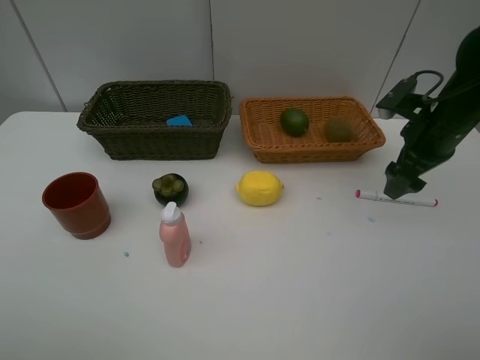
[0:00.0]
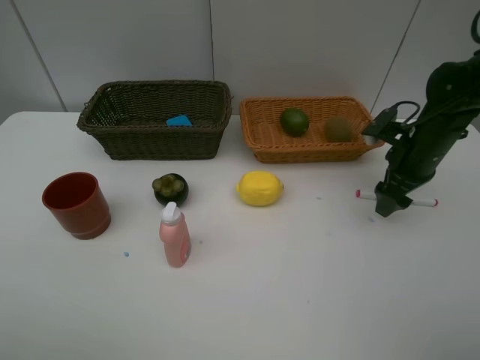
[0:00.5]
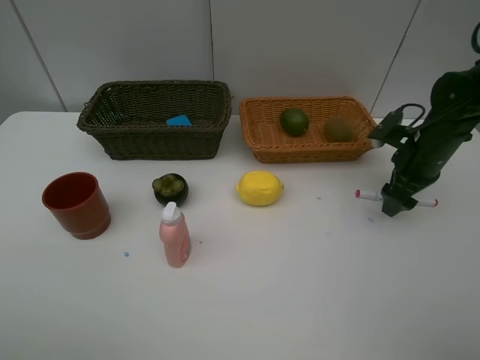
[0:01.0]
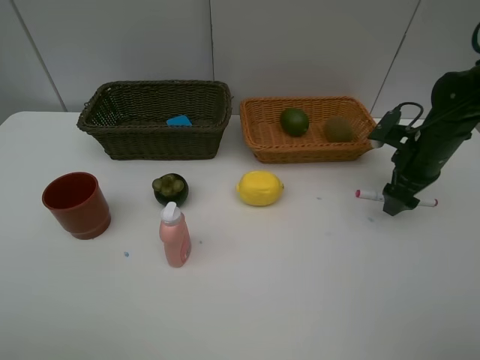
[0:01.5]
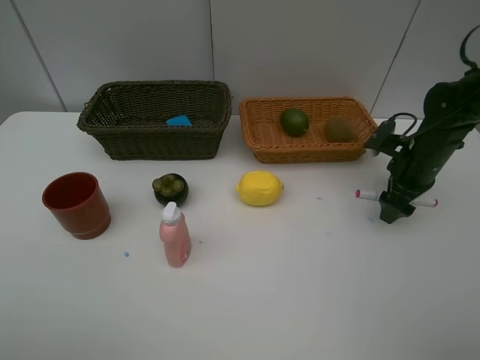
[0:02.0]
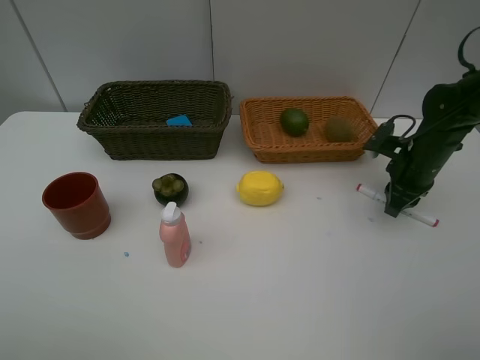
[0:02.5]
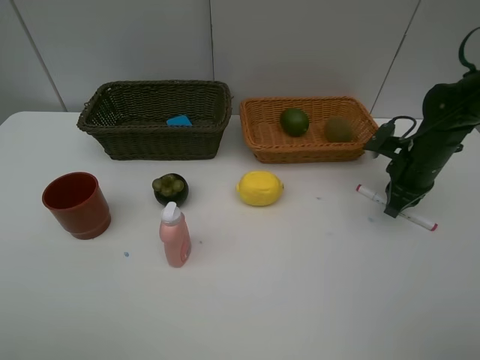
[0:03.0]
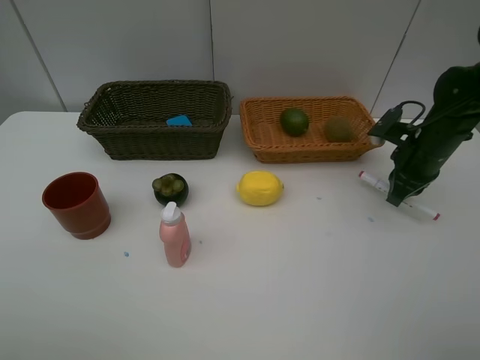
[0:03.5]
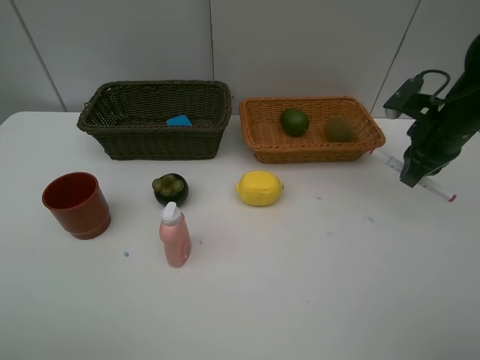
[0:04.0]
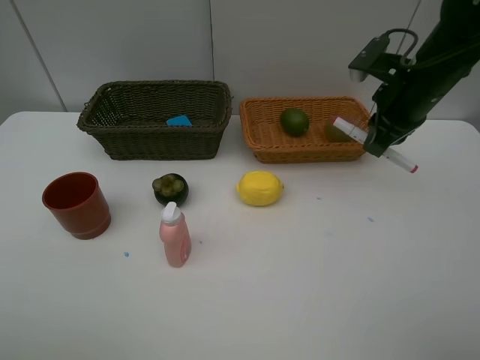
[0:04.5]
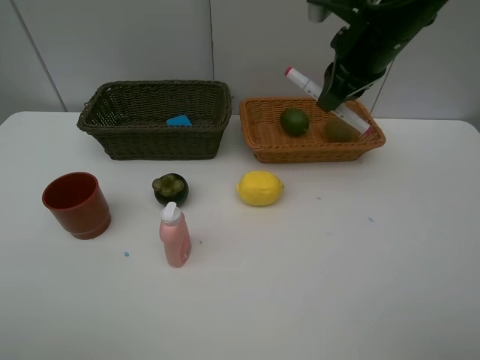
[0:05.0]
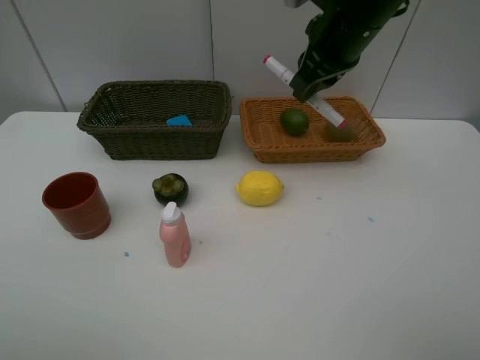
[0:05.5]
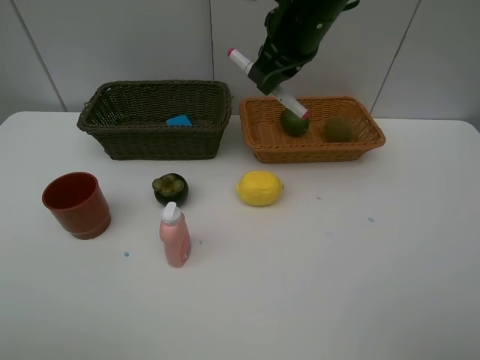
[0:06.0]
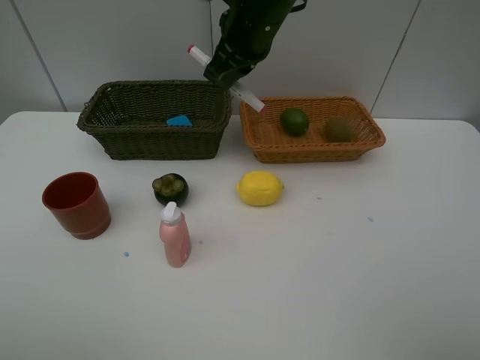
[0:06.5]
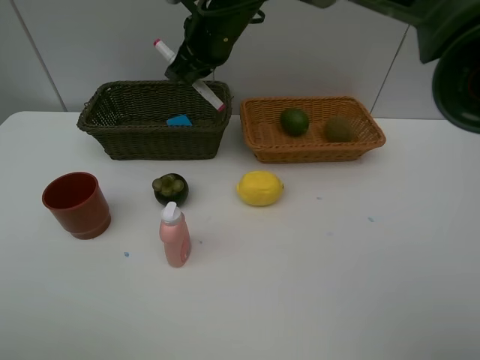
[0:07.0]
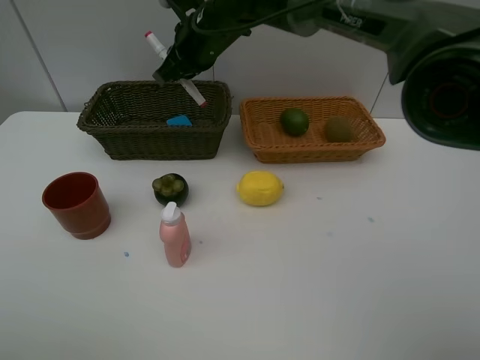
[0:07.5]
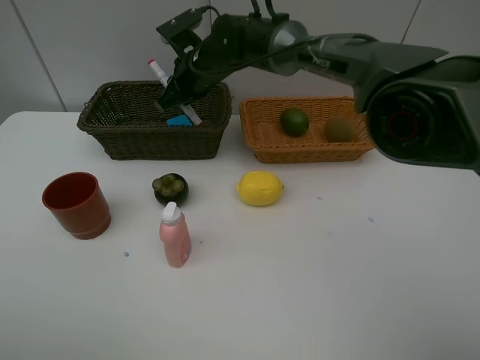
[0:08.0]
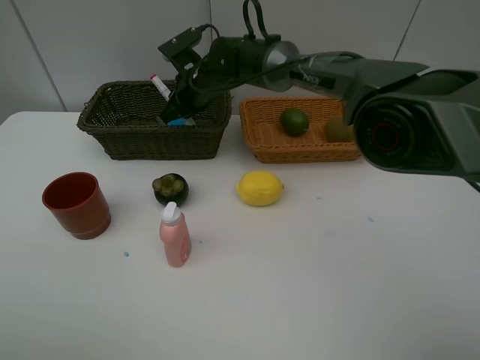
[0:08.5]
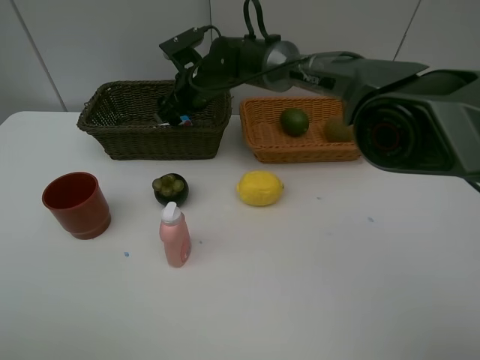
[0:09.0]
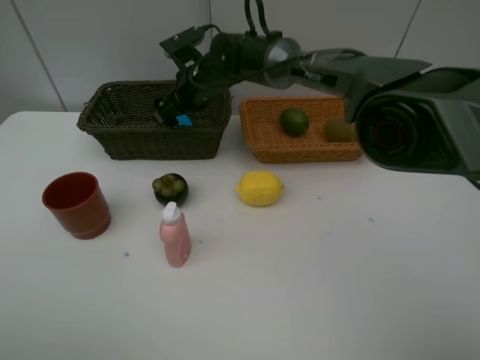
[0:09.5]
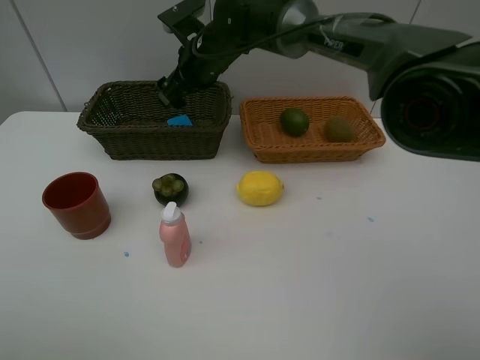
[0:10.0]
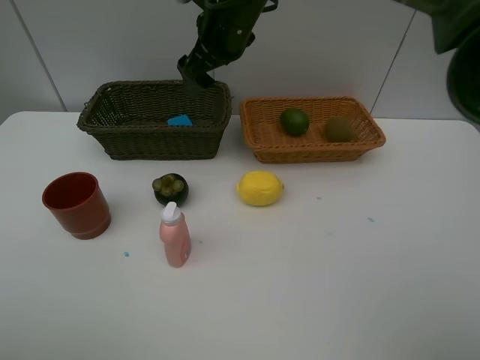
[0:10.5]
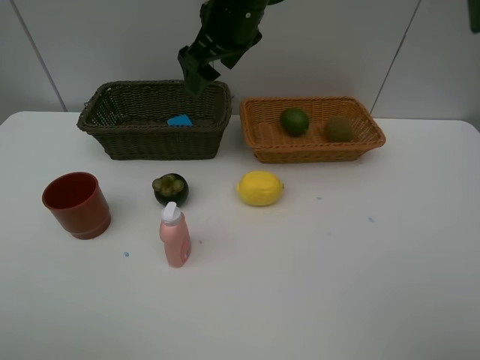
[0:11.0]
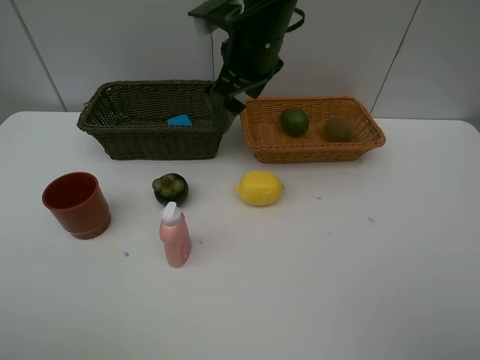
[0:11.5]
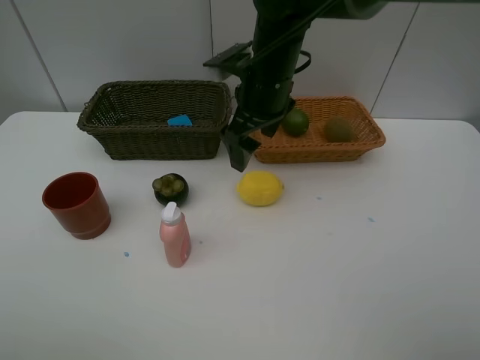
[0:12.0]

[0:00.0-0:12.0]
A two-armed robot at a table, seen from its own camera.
Task of the whole recording: Place multiple objects separately in different baskets.
Step, 0:00.0 to 0:03.5: Pick up the red marker with right gripper.
Step, 0:04.0 to 0:10.0: Place the red marker in the dark basket with right gripper.
0:00.0 to 0:02.0: The right gripper is displaced downward by some 5 cm.
0:02.0 to 0:04.0: The right gripper is displaced upward by approximately 10 cm, and closes up.
0:04.0 to 0:06.0: The right gripper moves to the left and upward, roughly 25 cm.
0:06.0 to 0:08.0: The right gripper moves to the left, downward and forward, some 20 cm.
0:08.0 to 0:10.0: The right gripper opens up.
0:10.0 to 0:12.0: The right gripper heads backward and to the right, covering roughly 10 cm.

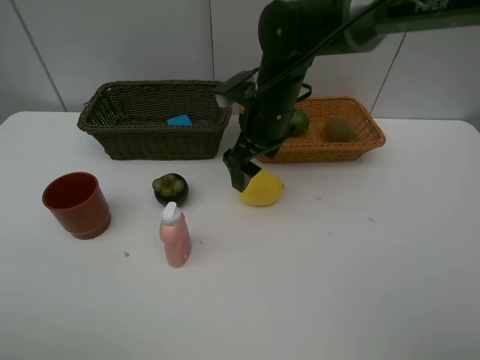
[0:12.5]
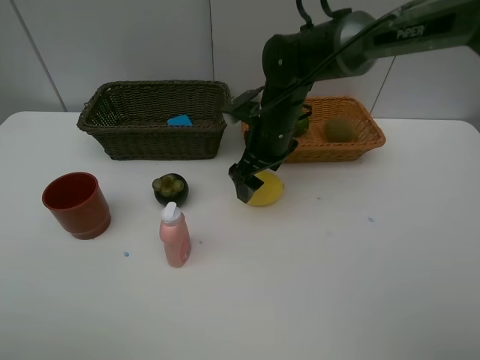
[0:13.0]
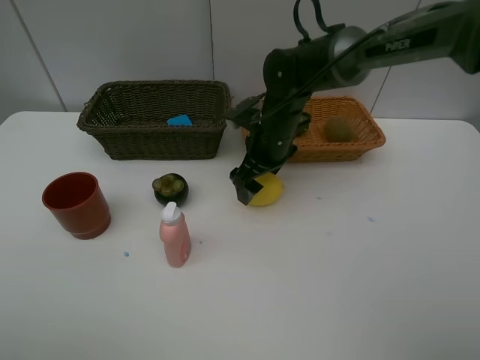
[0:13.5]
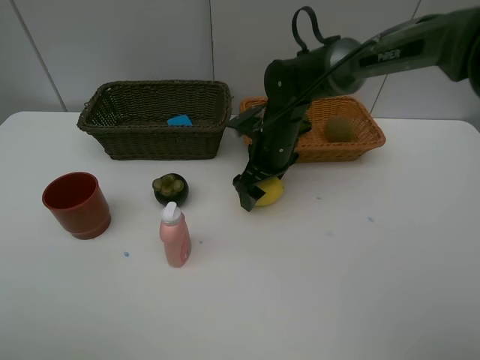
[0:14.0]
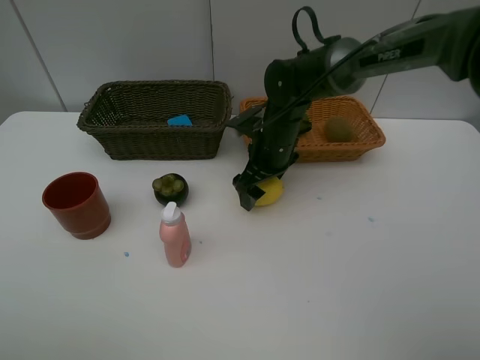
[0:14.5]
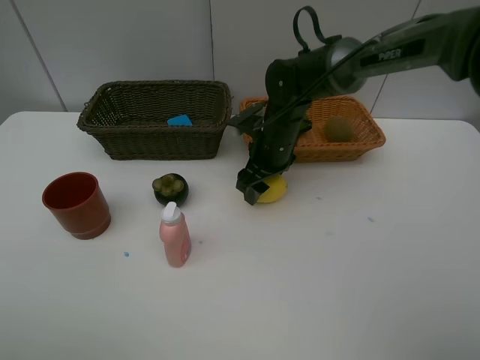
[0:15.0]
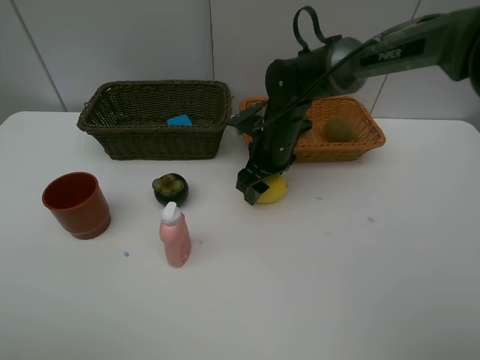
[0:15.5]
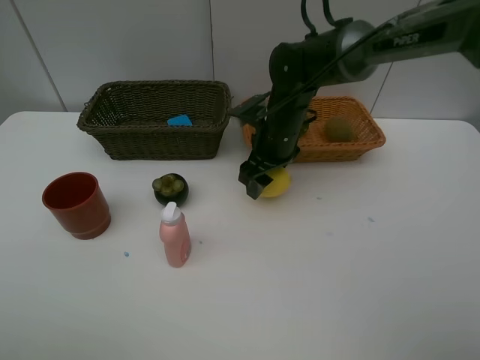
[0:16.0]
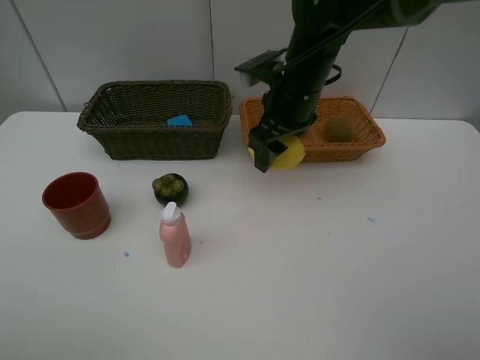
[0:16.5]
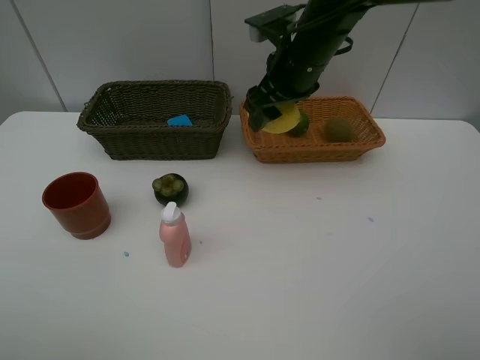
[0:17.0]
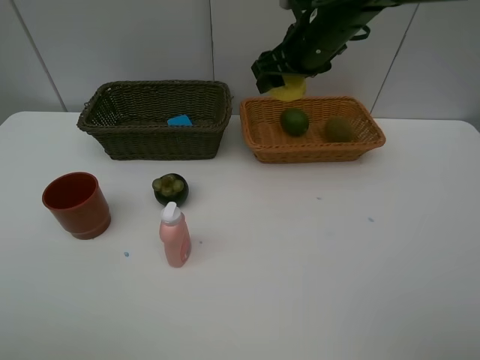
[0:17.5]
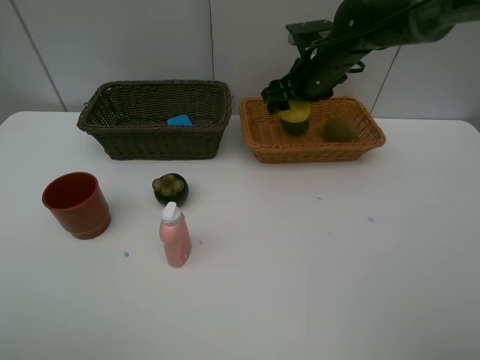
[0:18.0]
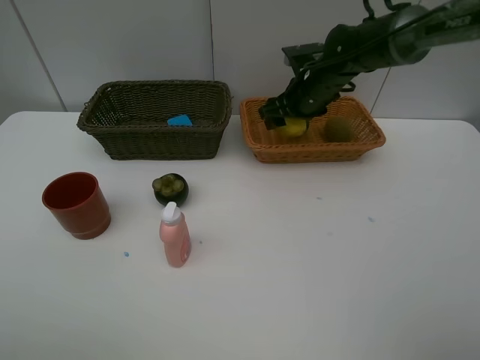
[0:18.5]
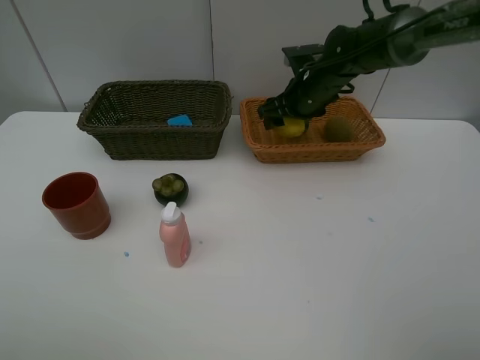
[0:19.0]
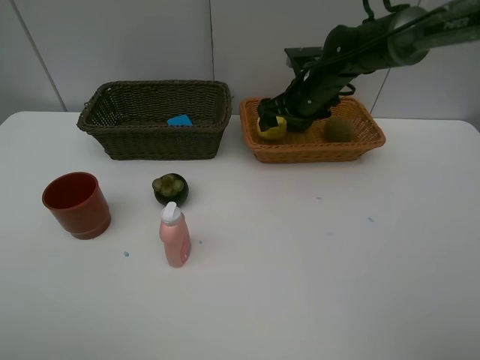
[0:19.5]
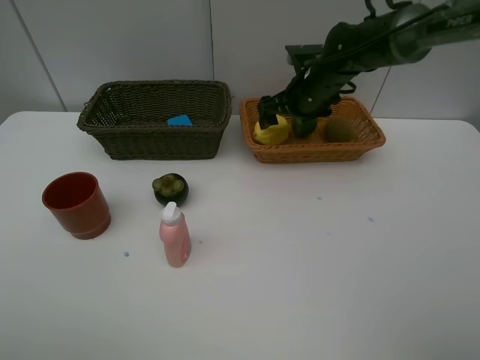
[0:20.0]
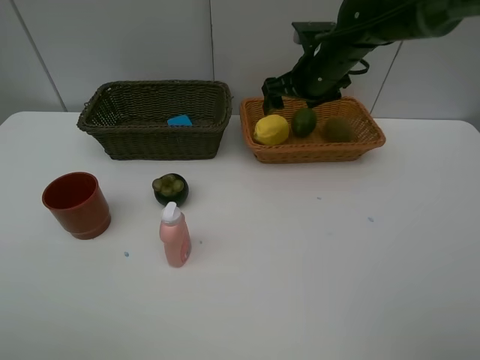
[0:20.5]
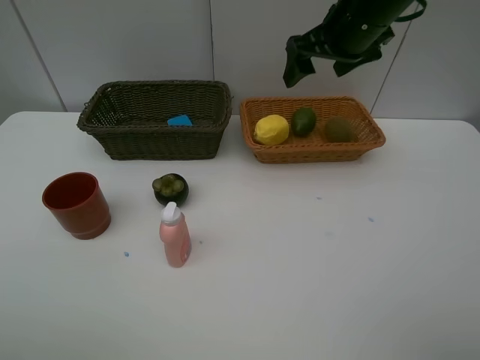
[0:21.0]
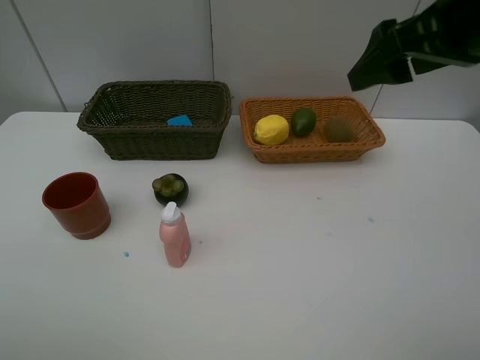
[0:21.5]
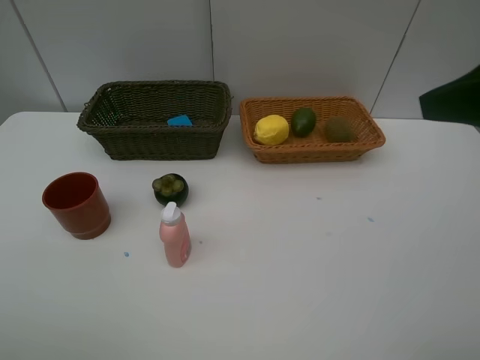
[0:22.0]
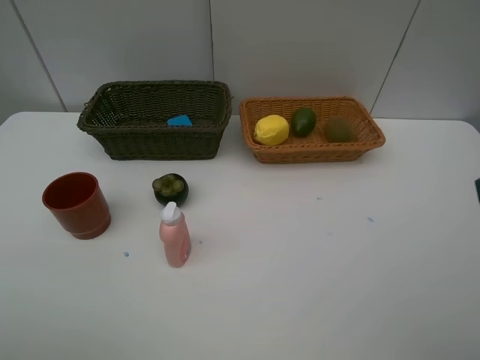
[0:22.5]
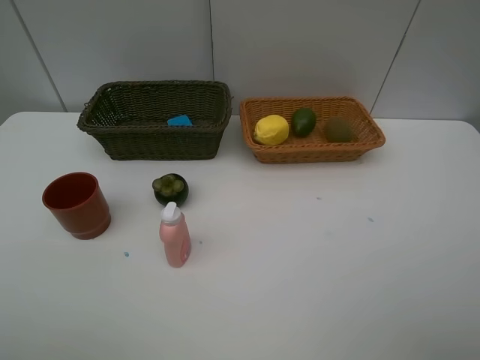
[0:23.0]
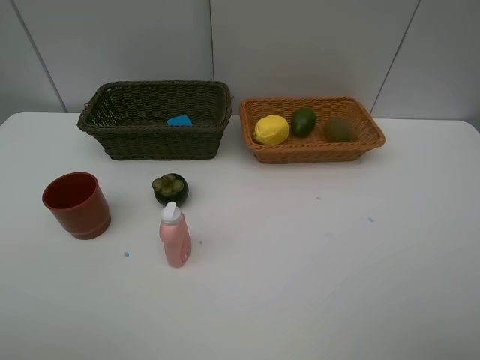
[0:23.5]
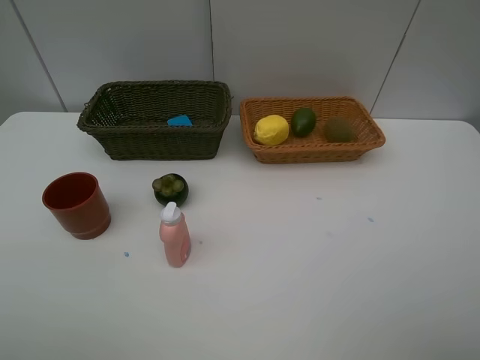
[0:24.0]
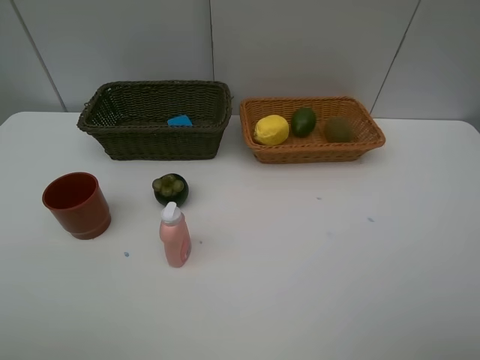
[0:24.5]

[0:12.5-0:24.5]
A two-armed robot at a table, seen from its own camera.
Task of the whole recording: Place multiple objects separately in different baskets.
Step, 0:12.5 to 0:16.0: Pick up the lemon with right gripper.
Step, 0:16.5 to 0:20.0: Place the lemon in the light basket with right gripper.
0:12.5 to 0:14.5: The right gripper travels downward by some 5 cm.
0:14.5 to 0:16.5: The right gripper heads upward, covering roughly 10 cm.
0:16.5 to 0:18.5: The right gripper goes approximately 10 cm forward, downward and to the right.
0:18.5 to 0:20.5: The grippers stay close to where they were, moving slightly.
0:20.5 to 0:22.5: The right gripper travels backward by some 35 cm.

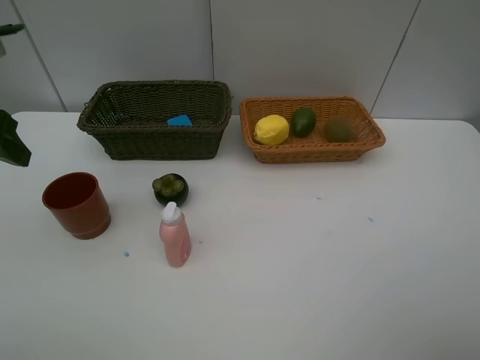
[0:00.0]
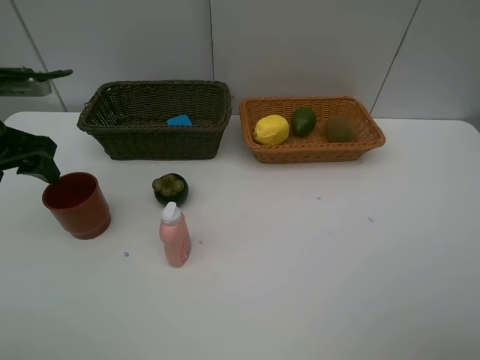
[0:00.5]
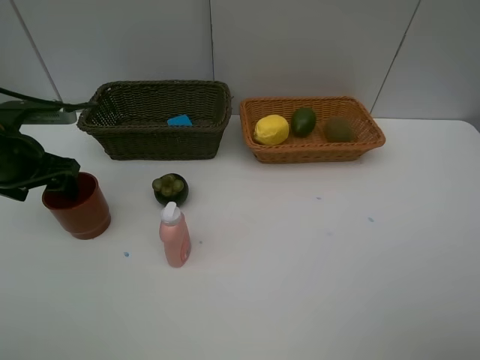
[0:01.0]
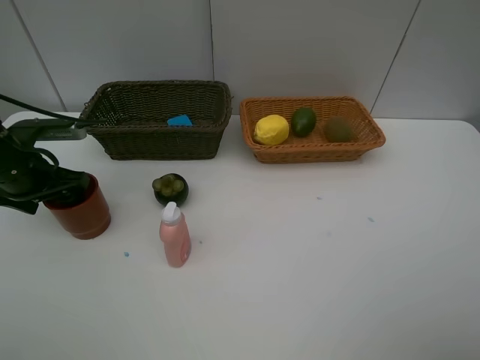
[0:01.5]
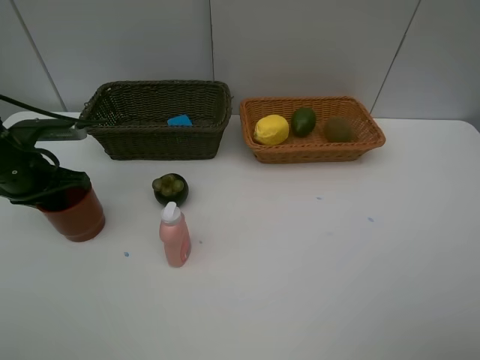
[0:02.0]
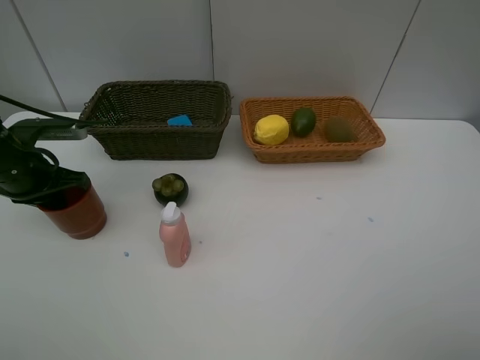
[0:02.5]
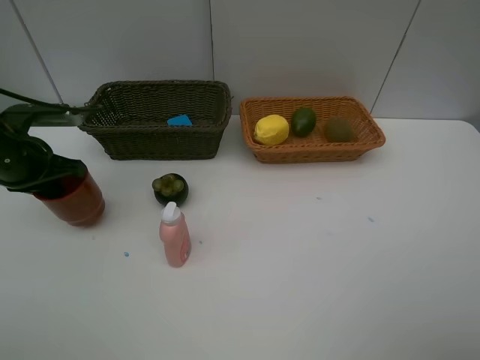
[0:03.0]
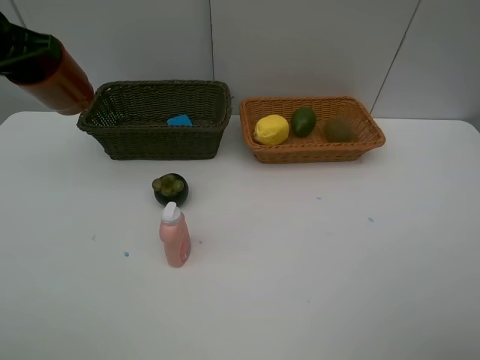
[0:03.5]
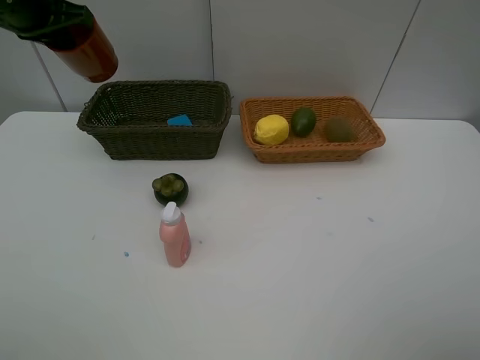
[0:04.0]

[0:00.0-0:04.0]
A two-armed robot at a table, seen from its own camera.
Task of the whole recording: Place multiple objects separately in different baskets.
Step, 0:00.0 to 0:03.0: Pick up the dark brown cup with left gripper.
0:00.0 to 0:02.0: The left gripper is displaced downward and forward by roughly 15 cm, and closes its fingers.
0:02.0 to 0:04.0: The left gripper travels upward and forward by about 20 cm.
